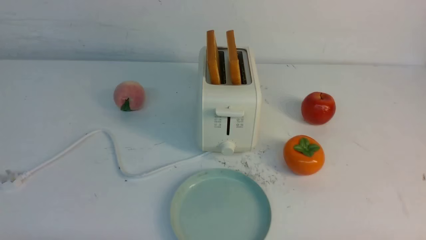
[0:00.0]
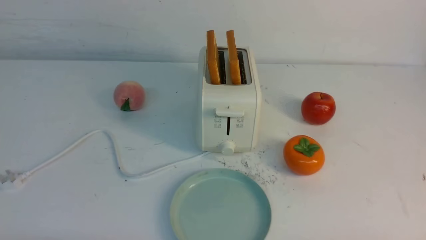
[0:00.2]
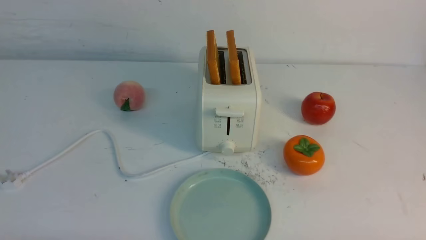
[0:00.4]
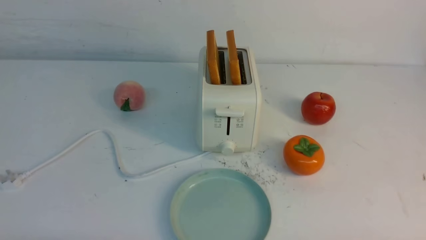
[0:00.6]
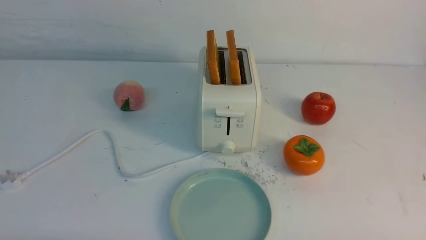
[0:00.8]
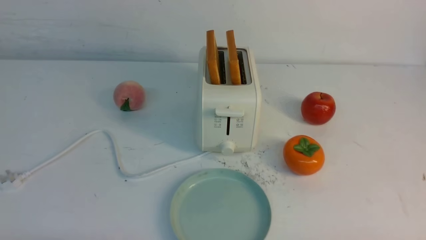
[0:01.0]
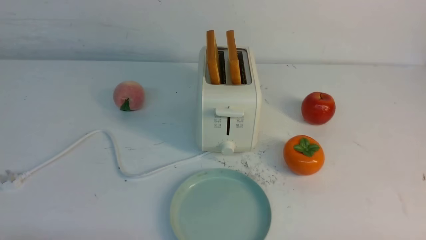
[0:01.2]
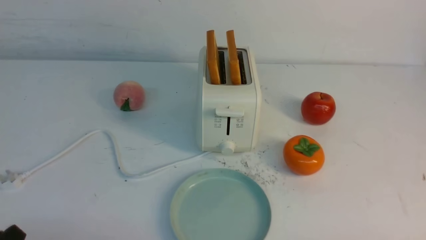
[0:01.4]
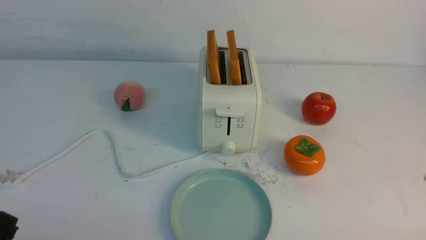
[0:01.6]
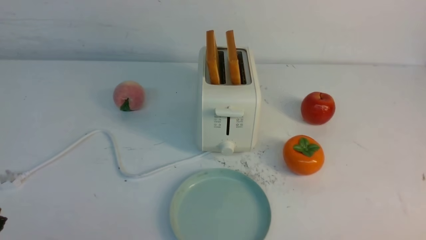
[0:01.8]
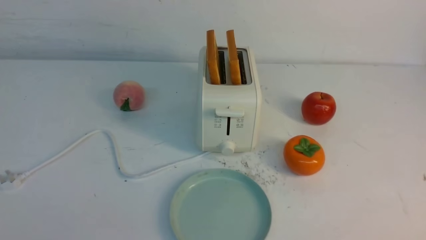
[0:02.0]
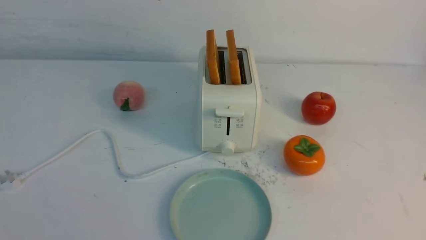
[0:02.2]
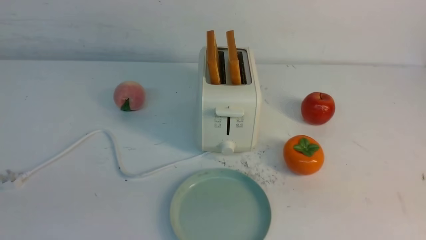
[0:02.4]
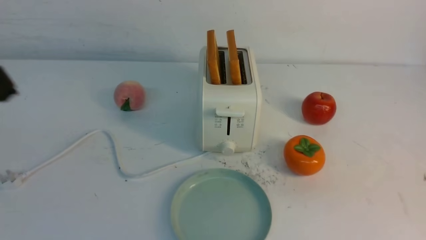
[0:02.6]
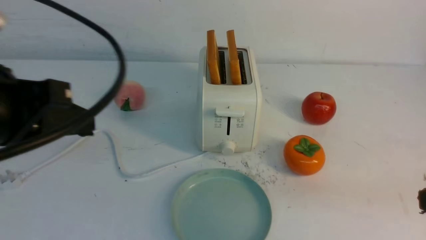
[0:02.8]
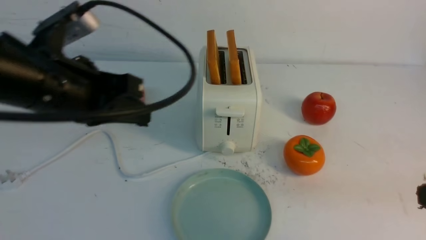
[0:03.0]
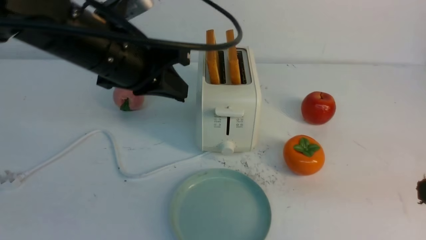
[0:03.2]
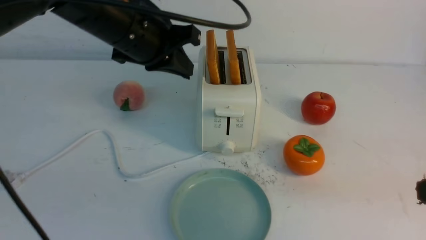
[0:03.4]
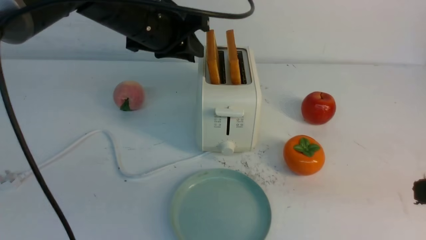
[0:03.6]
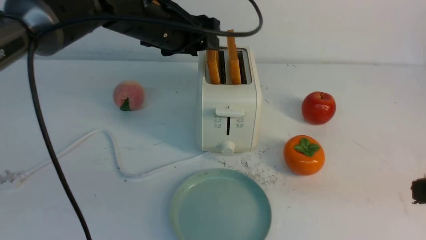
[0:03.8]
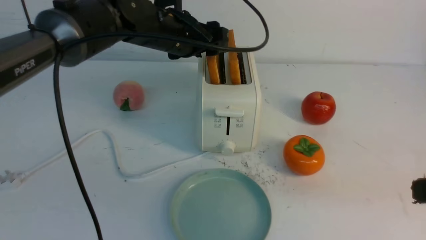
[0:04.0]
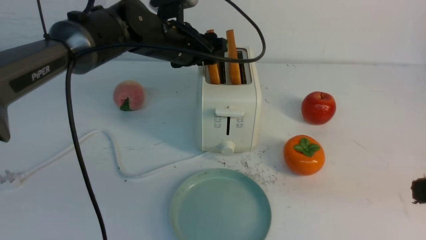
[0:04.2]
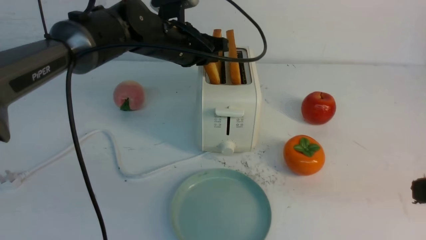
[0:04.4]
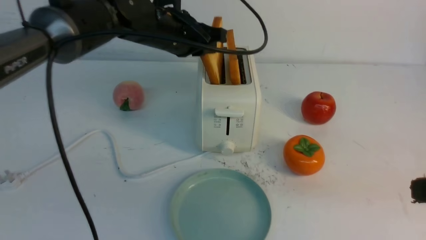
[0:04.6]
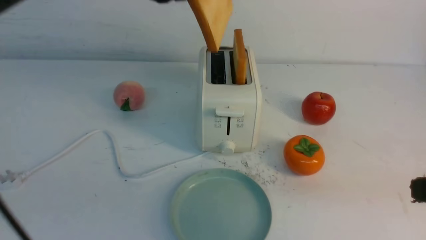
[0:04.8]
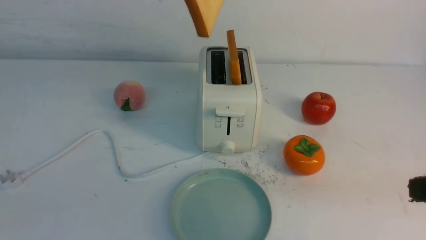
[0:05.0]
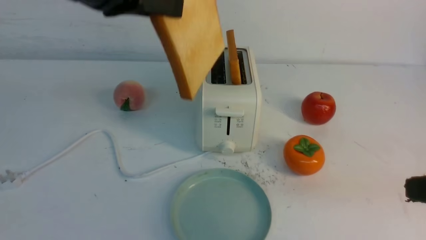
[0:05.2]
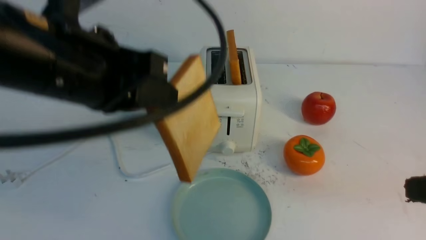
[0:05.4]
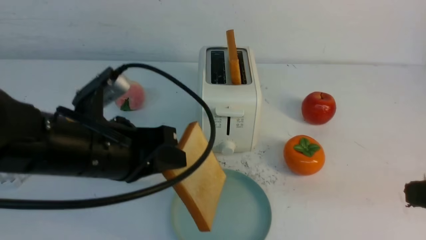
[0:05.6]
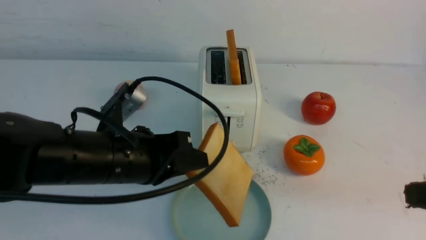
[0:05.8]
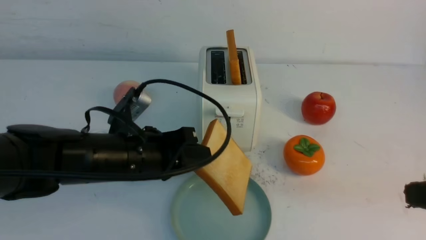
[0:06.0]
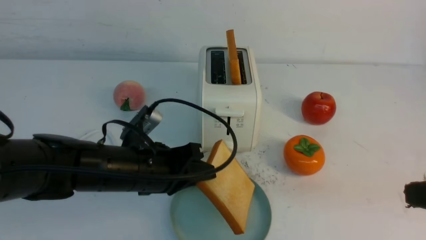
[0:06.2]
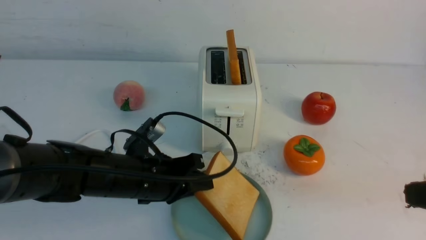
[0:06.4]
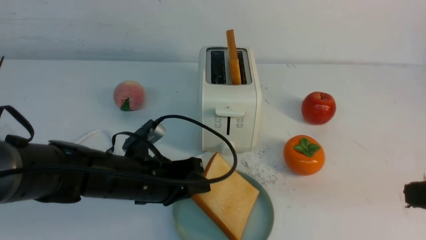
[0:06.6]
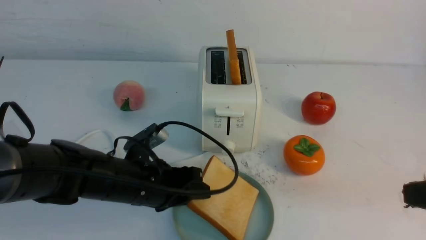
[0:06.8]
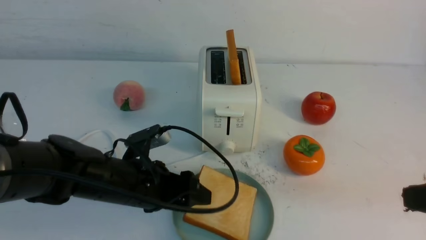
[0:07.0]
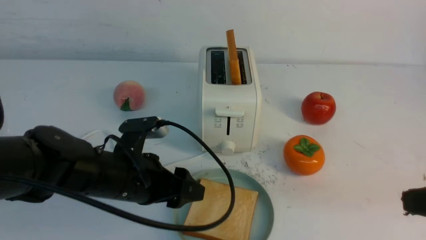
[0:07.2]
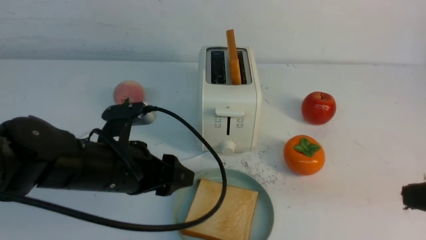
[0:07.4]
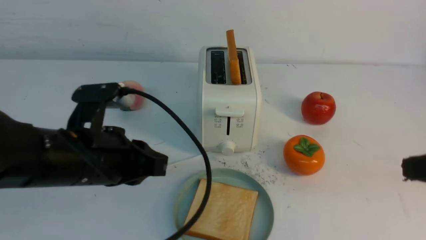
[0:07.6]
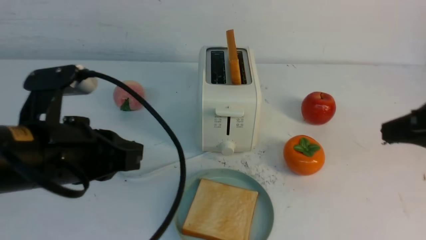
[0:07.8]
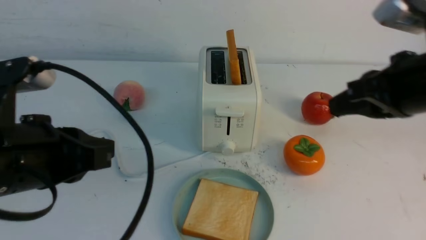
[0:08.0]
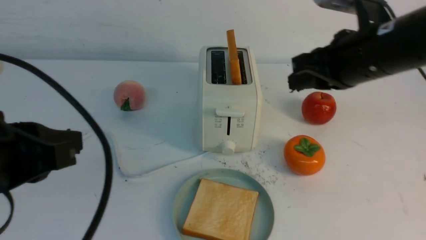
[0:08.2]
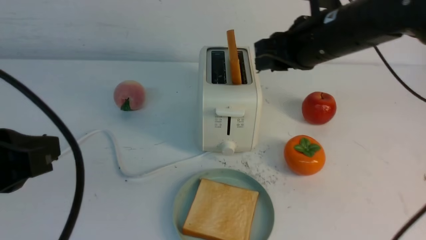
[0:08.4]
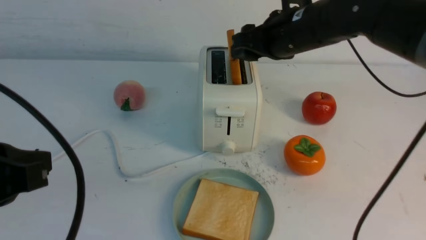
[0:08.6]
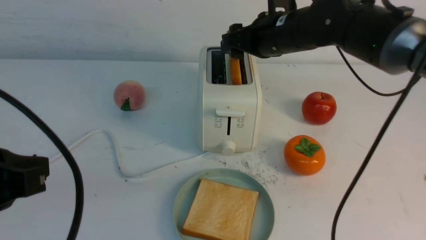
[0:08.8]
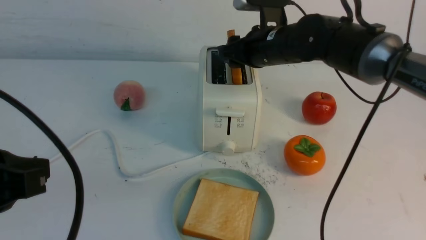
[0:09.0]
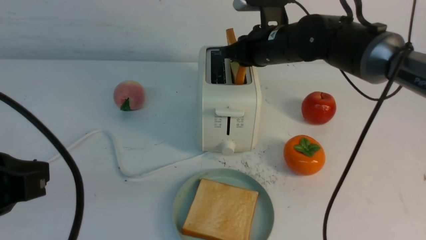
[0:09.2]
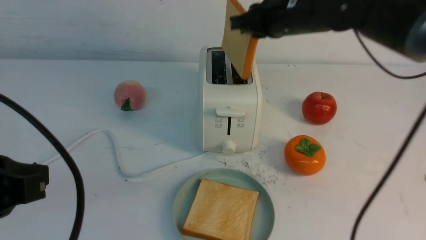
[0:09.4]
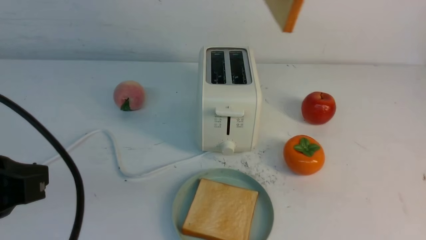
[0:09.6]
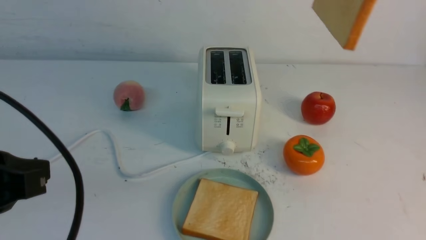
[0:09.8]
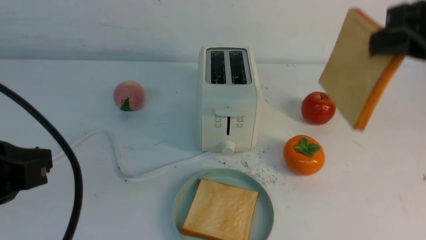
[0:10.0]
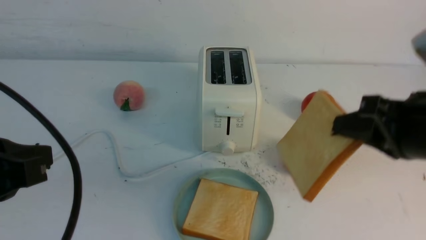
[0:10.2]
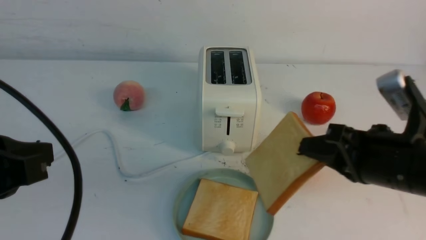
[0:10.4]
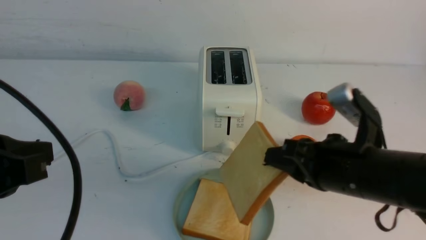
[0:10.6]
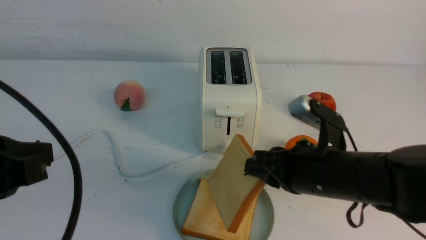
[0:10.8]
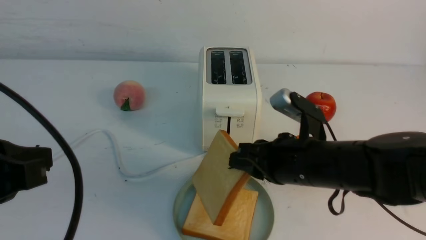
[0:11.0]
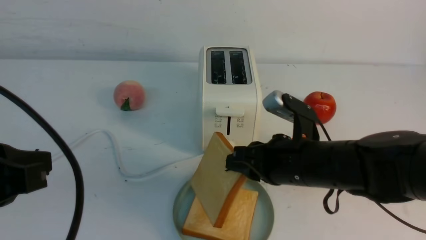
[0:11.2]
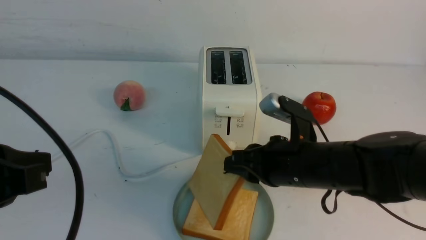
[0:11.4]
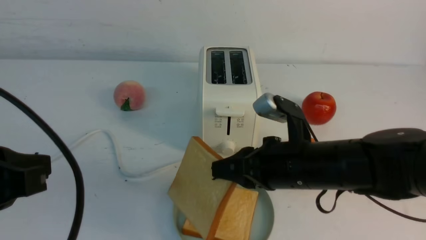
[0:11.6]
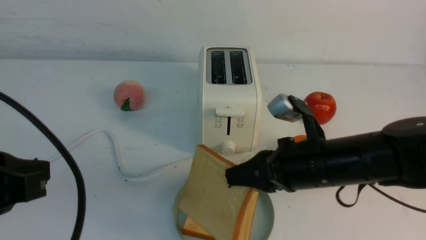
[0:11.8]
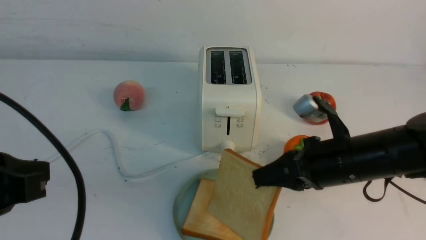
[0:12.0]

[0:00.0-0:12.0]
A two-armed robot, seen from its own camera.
Task of the whole recording: take toasted bread from bread machine on white table place on plate.
Step, 0:00.0 to 0:04.6: use the left arm to take out a slice of bread.
Step, 0:04.8 to 0:07.0: use the left arm to put a slice of bread into the empty plate.
Step, 0:07.4 to 0:09.2: use the right arm to take out a slice of bread.
0:01.6 to 0:03.0: The right gripper is displaced upward and forward by roughly 15 cm, and closes; the left gripper is displaced forward, upward and to the right by about 30 cm, and closes.
0:03.0 to 0:04.4: The left gripper travels forward and to the right by about 20 cm, and opens its fingers.
0:04.4 to 0:06.0: The left gripper is displaced backward and downward by approximately 20 cm.
0:06.0 to 0:07.6: The left gripper changes place by about 5 cm, and opens and closes again.
0:07.6 to 0:09.0: The right gripper heads forward and to the left, covering about 35 cm, and opens its fingers. Meanwhile the left gripper is displaced backward, to the left and upward by roughly 15 cm.
0:09.0 to 0:10.4: The right gripper travels backward and to the right by some 25 cm, and closes up.
0:10.4 to 0:12.0: The right gripper goes about 5 cm downward.

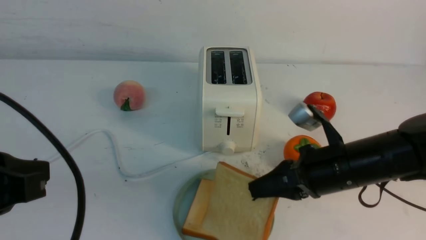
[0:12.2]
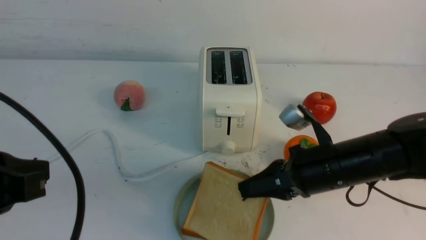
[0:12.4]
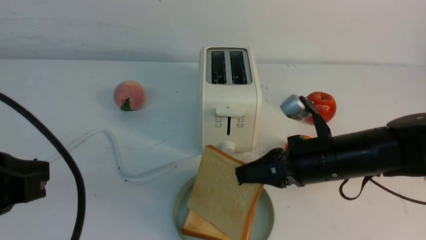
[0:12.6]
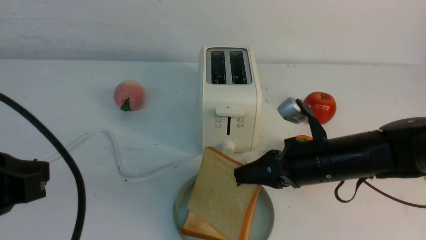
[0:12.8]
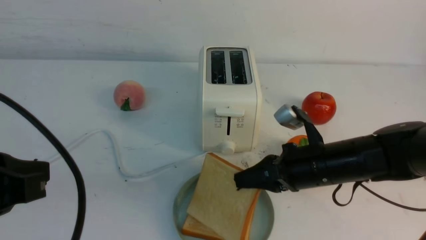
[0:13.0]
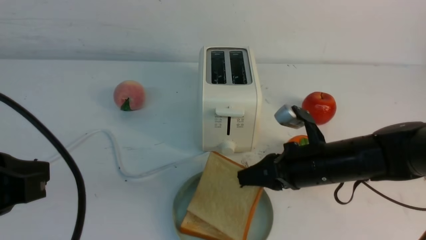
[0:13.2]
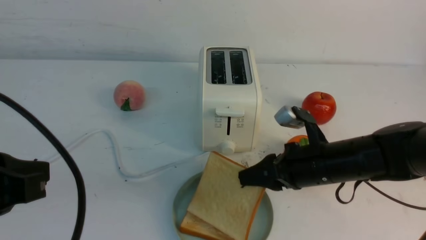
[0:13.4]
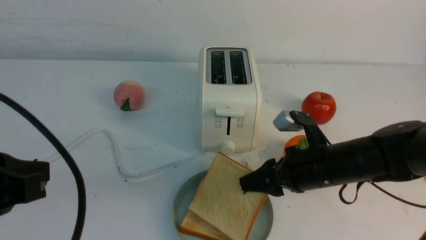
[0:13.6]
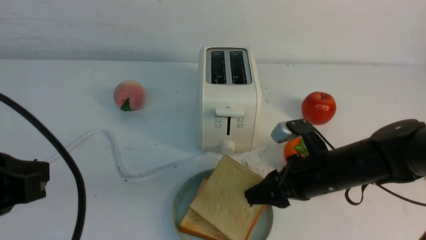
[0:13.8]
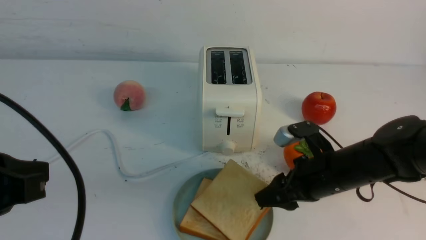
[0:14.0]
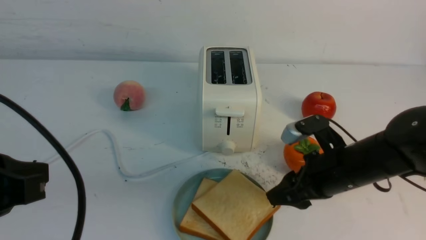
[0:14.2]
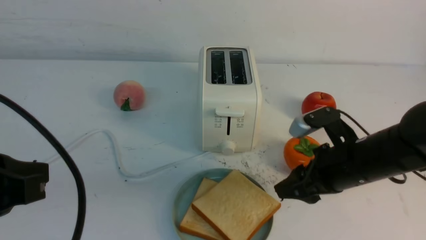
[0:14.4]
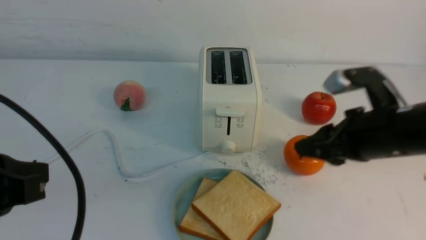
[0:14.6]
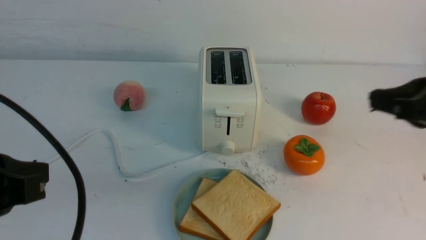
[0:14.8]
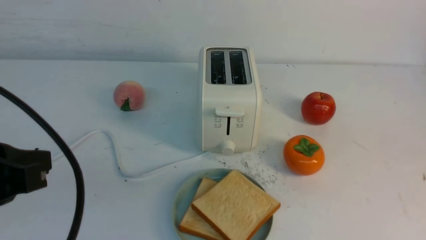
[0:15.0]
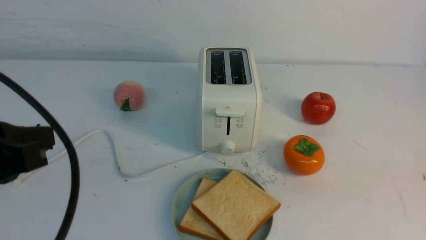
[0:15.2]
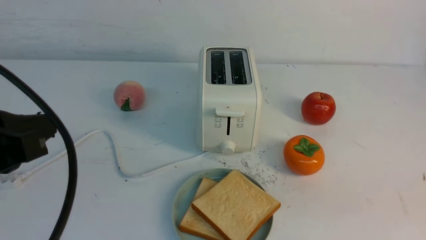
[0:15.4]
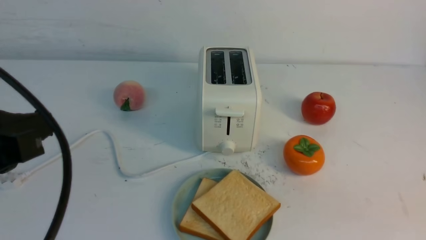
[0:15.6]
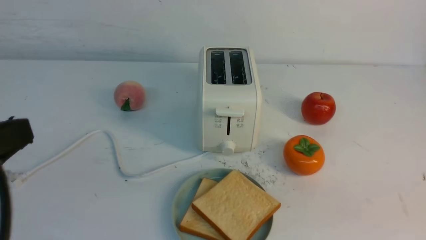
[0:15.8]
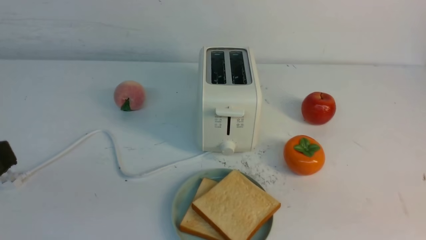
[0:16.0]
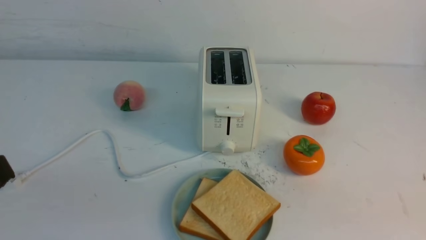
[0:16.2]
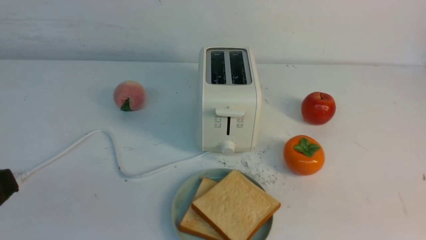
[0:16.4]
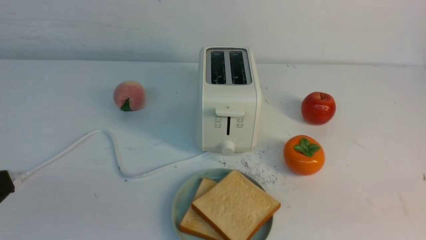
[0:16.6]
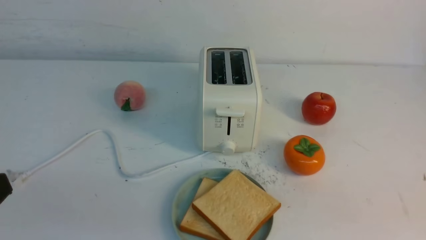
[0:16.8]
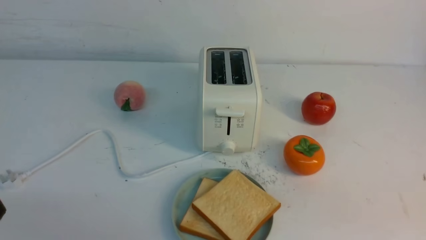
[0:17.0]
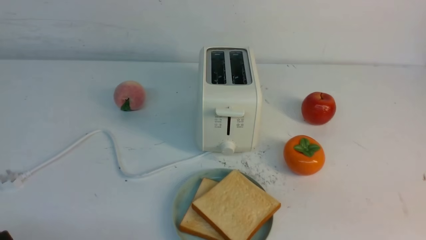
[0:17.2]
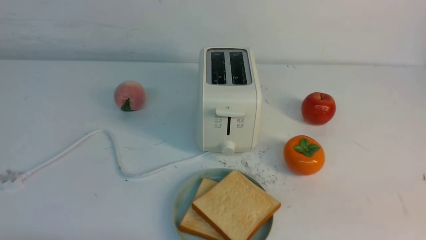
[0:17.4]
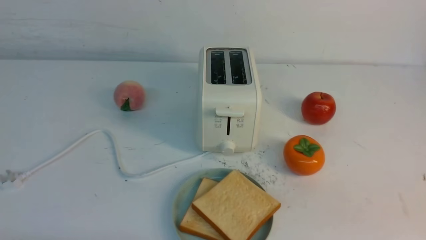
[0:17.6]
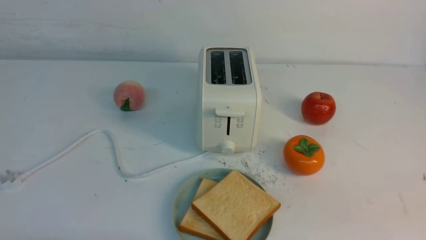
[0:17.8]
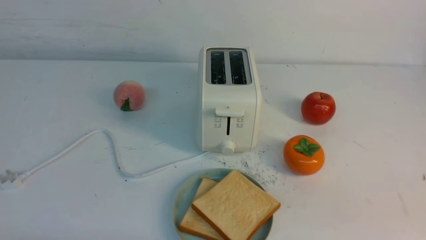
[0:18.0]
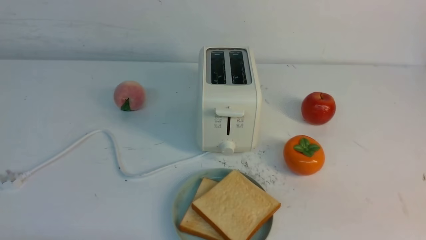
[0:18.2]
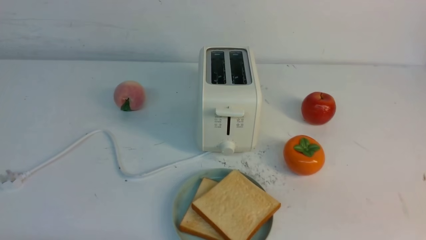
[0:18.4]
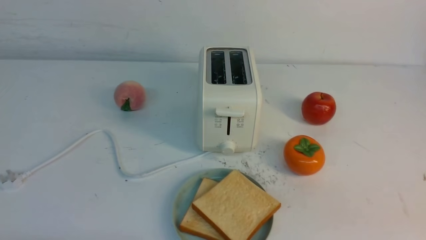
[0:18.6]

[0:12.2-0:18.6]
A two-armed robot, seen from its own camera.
Task of the whole recording: take toasted bread from bread machine on white table place on plate.
Step, 0:12.2 to 0:14.2: use the right arm to put a slice of bread into the plate.
0:12.2 to 0:13.8: The right gripper opens.
0:13.8 to 0:15.4: The right gripper is displaced backward, upward and to the right by approximately 30 cm, and closes up.
0:15.4 to 0:17.0: The left gripper travels downward and backward by about 15 cm.
